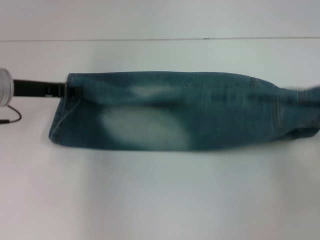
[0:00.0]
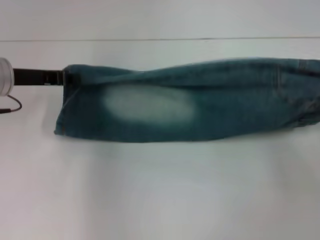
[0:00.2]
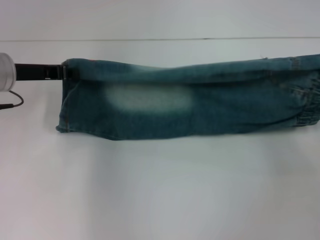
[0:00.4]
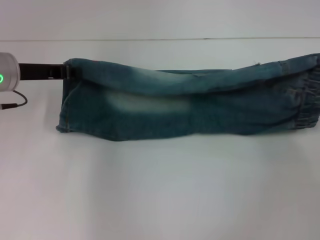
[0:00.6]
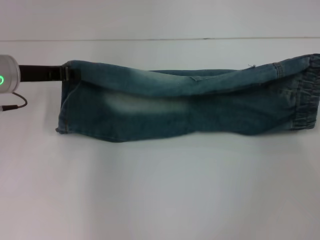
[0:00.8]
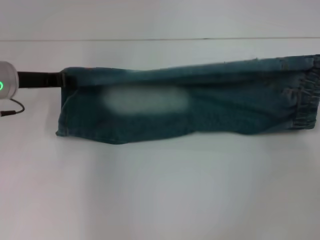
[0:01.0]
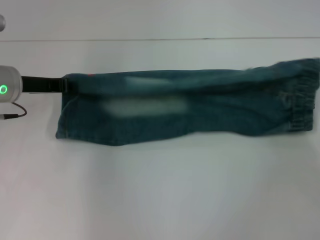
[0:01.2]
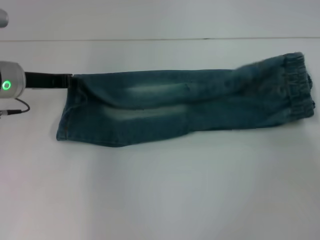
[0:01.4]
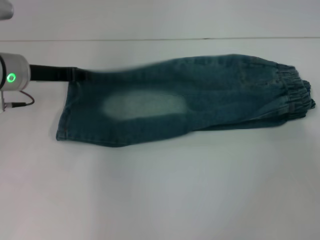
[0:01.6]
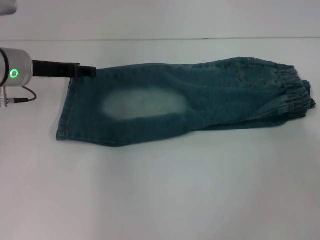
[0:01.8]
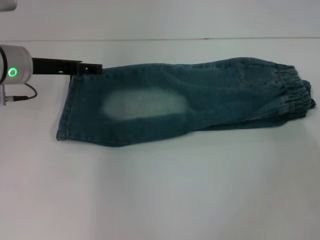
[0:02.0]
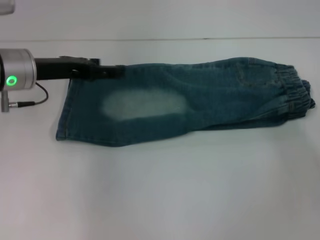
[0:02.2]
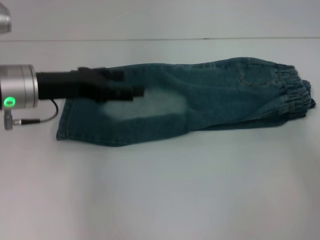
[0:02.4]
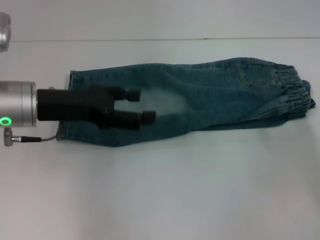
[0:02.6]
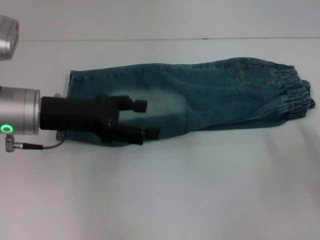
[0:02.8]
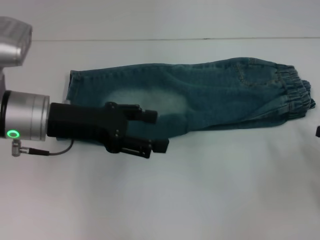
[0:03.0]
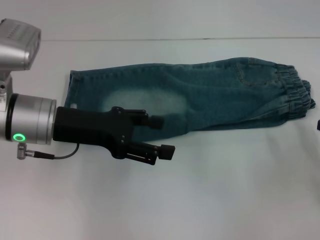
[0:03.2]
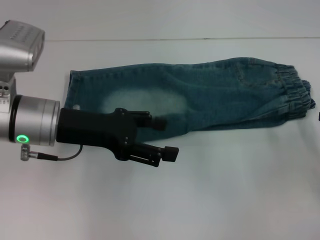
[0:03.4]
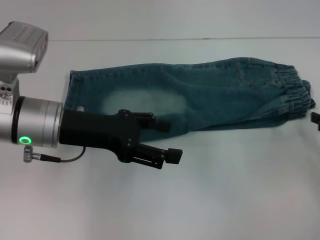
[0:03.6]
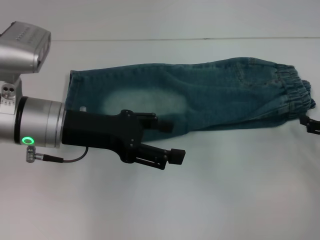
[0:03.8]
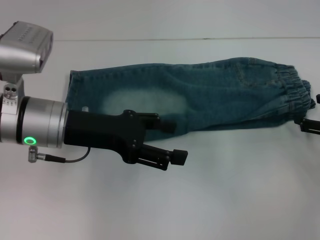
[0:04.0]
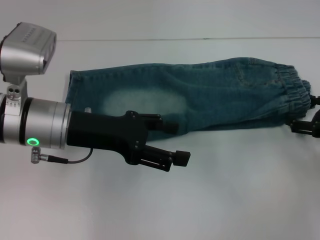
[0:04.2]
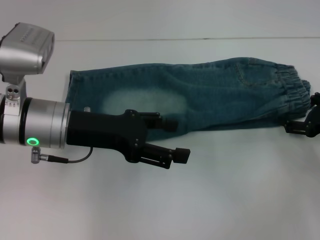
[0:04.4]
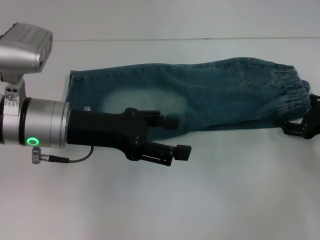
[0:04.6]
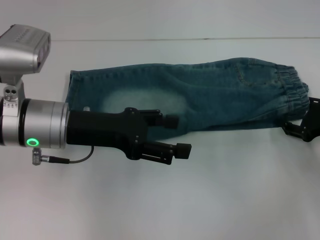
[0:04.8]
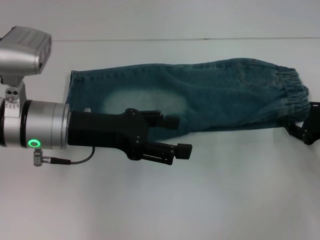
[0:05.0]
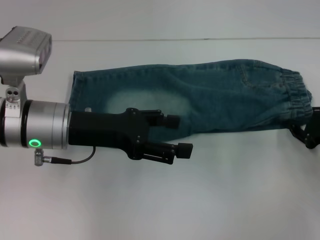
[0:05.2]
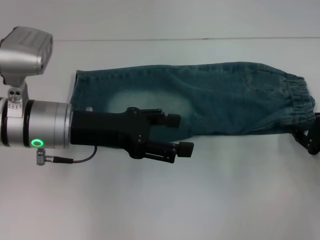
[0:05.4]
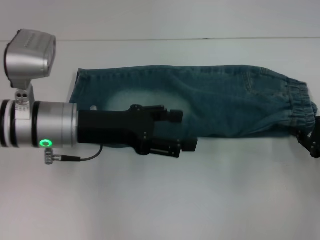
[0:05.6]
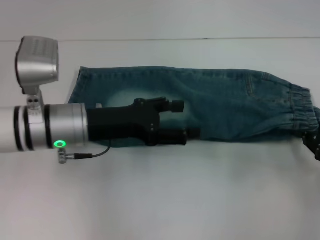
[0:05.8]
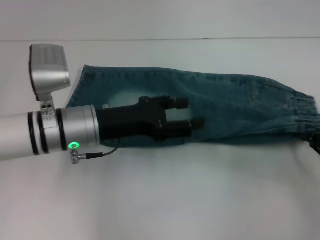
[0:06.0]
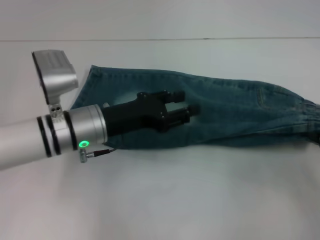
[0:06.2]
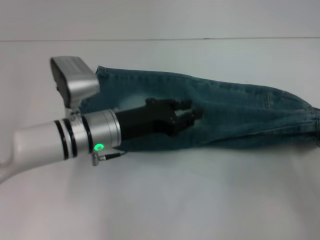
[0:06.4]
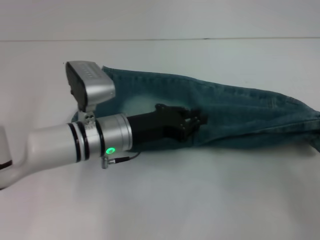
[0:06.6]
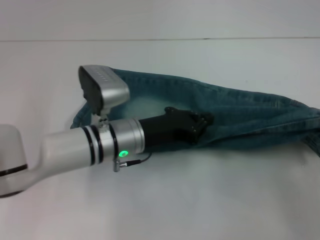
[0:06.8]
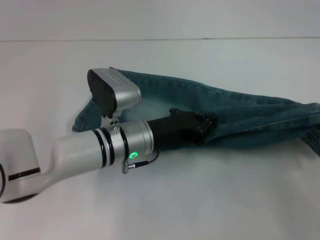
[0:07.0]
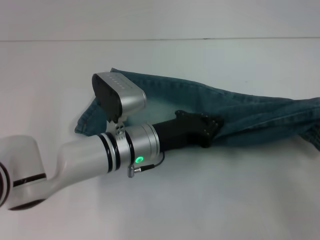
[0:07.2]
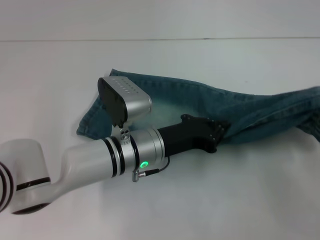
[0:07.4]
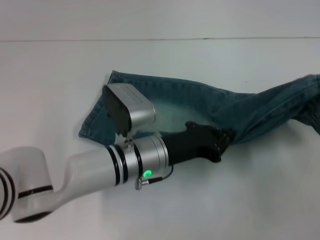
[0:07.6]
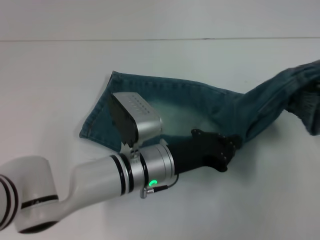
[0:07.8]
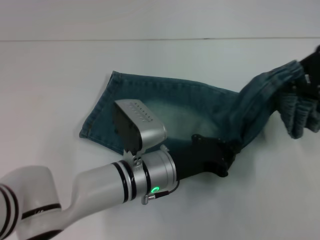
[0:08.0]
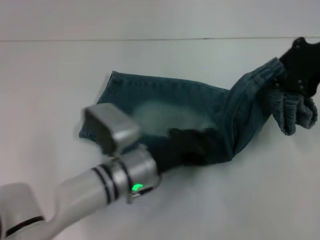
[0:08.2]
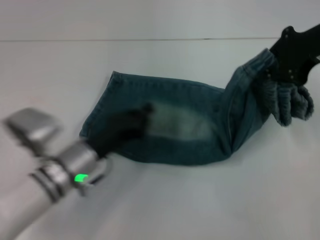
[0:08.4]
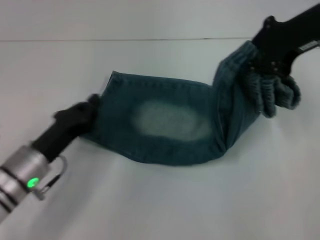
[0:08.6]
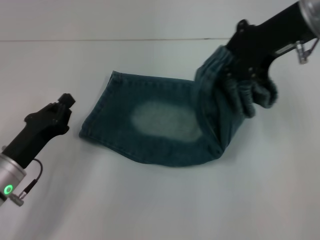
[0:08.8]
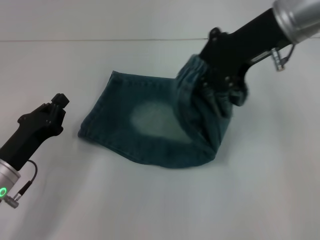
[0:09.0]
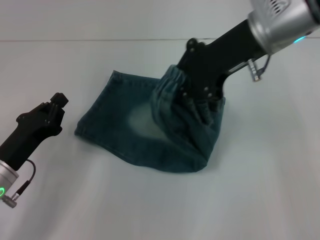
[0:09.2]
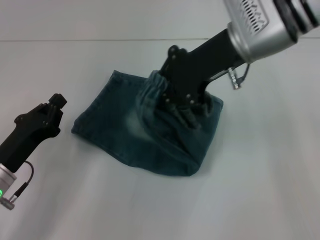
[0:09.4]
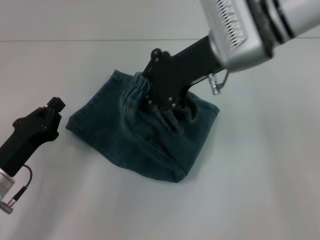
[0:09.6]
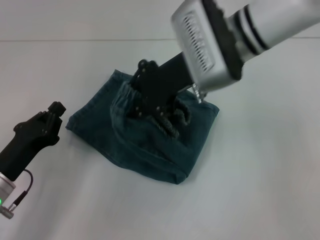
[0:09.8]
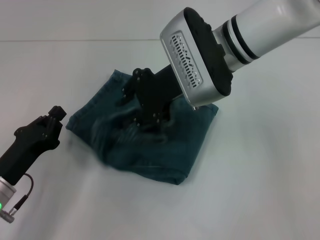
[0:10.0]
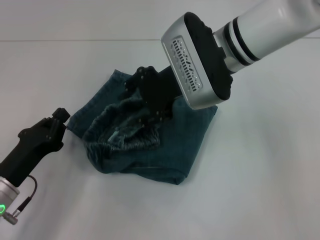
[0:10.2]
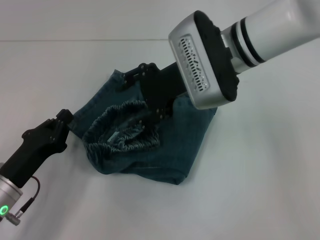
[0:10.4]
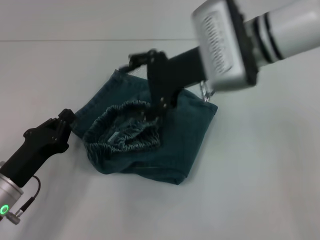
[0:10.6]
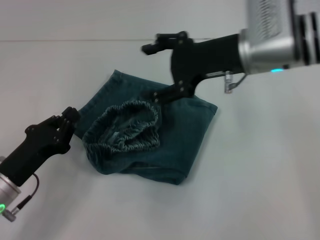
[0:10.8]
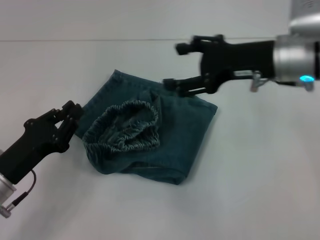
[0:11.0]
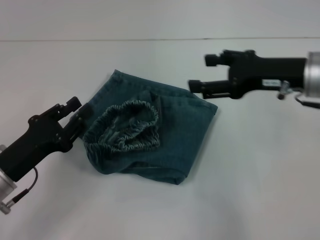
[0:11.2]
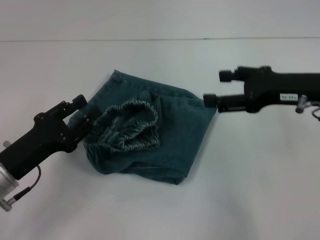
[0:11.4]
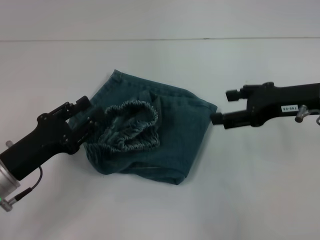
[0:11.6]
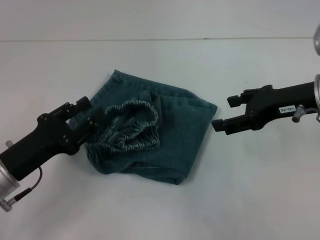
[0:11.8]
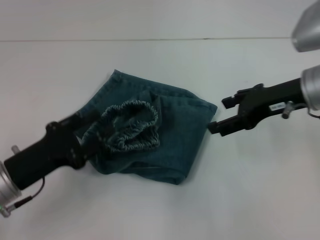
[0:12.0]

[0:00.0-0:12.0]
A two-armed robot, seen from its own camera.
Step, 0:00.0 to 0:01.4: Fold upward with your right hand.
Step, 0:01.8 to 0:05.4: Grab the waistband with your right hand.
Step, 0:05.6 to 0:08.0: Press the middle of the pants with your left hand.
Step, 0:08.2 to 0:12.0: Fold to the left with your right hand.
0:00.0 to 0:01.6: The right gripper is displaced forward by roughly 10 cm.
0:01.6 to 0:03.0: The right gripper goes some 15 cm backward and downward, and opens up; the left gripper shifts roughly 10 cm backward, and opens its fingers.
0:03.0 to 0:04.4: The right gripper goes some 10 cm forward.
0:04.4 to 0:06.0: The right gripper heads backward, covering about 5 cm, and closes up. Meanwhile the left gripper ends up approximately 5 cm from where it was.
0:06.0 to 0:07.6: The right gripper moves upward, roughly 10 cm. The left gripper heads to the right and downward, covering approximately 10 cm, and closes.
0:07.6 to 0:09.0: The left gripper heads to the left, covering approximately 20 cm. The right gripper shifts some 25 cm to the left and forward.
0:09.0 to 0:10.4: The right gripper travels to the left and downward by about 10 cm, and opens.
0:10.4 to 0:12.0: The right gripper is displaced to the right by some 15 cm, and opens. The left gripper opens up.

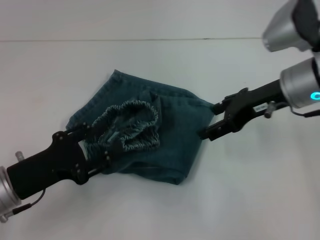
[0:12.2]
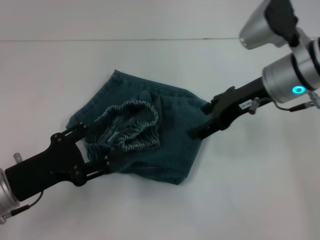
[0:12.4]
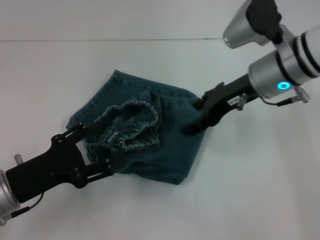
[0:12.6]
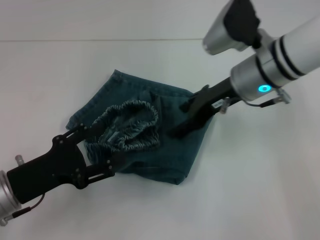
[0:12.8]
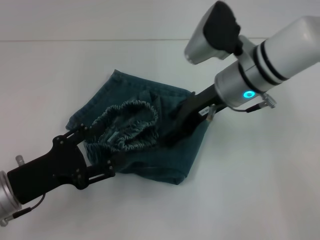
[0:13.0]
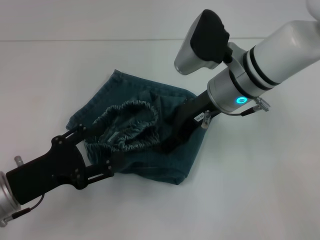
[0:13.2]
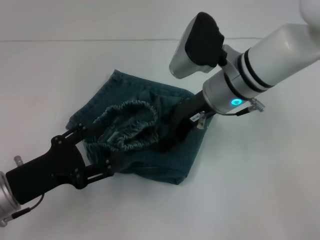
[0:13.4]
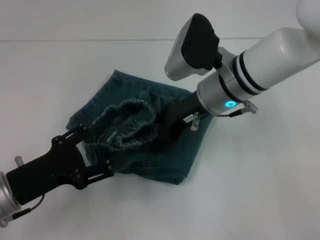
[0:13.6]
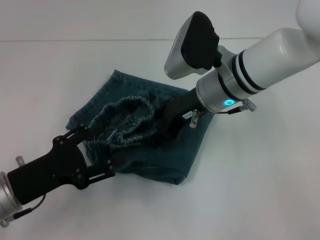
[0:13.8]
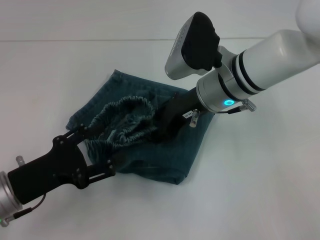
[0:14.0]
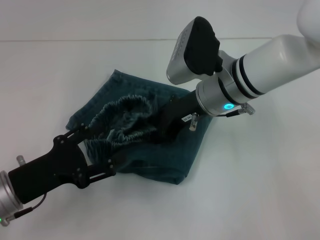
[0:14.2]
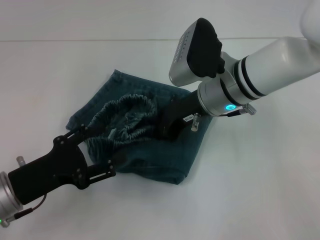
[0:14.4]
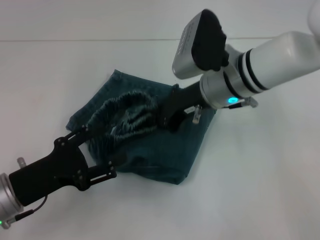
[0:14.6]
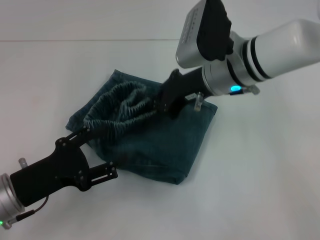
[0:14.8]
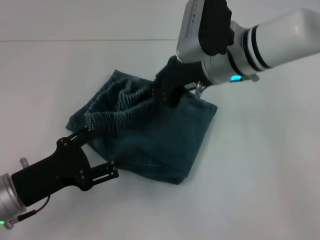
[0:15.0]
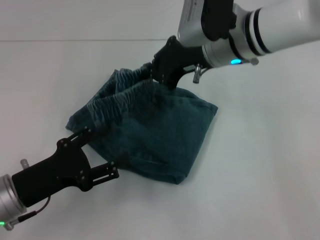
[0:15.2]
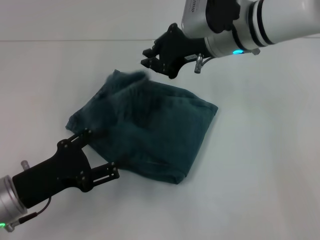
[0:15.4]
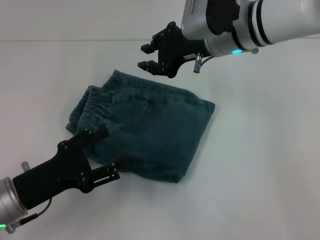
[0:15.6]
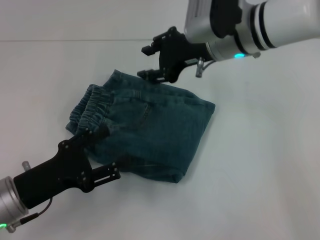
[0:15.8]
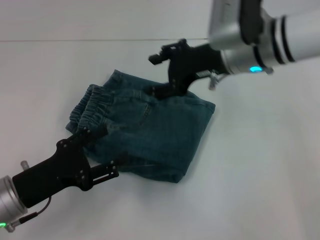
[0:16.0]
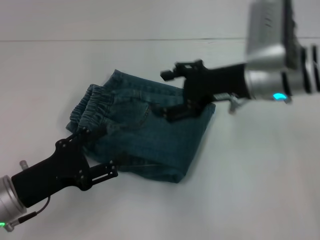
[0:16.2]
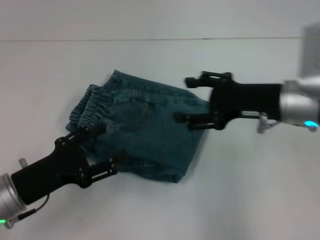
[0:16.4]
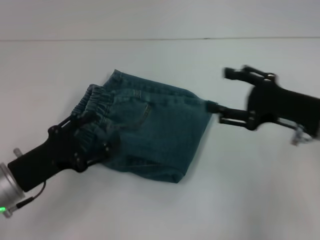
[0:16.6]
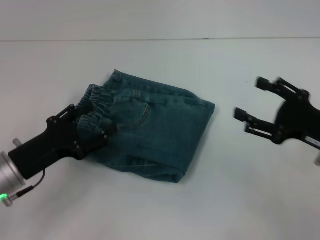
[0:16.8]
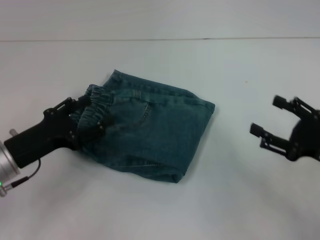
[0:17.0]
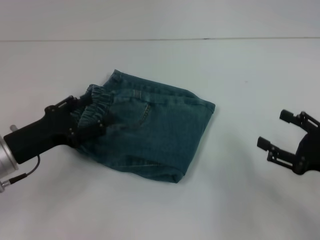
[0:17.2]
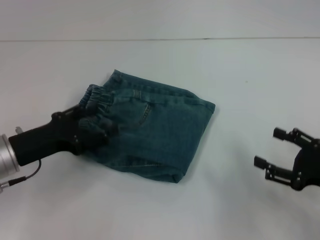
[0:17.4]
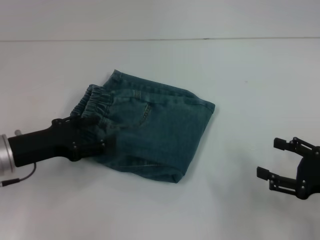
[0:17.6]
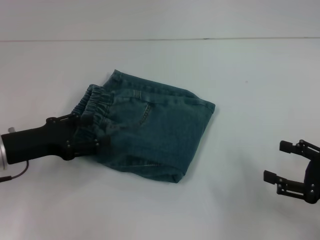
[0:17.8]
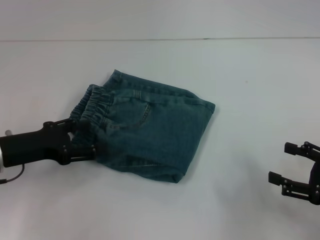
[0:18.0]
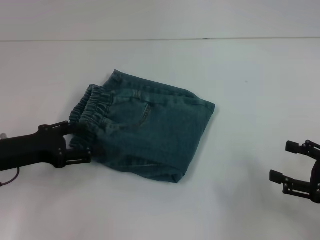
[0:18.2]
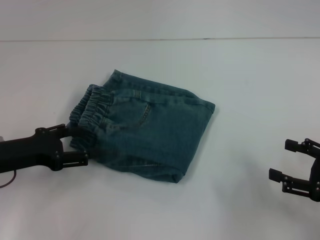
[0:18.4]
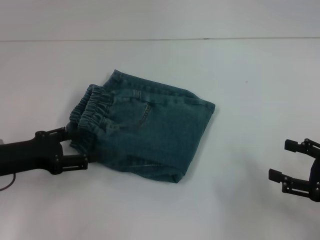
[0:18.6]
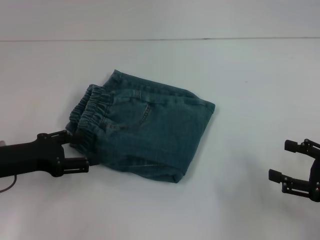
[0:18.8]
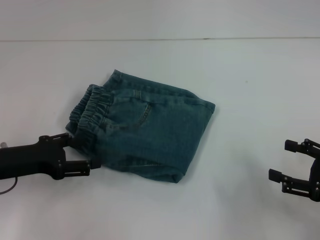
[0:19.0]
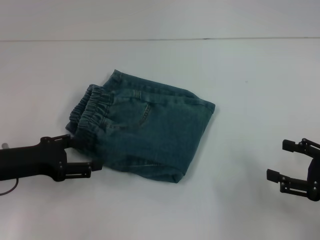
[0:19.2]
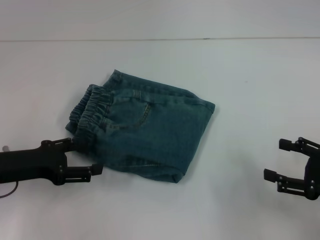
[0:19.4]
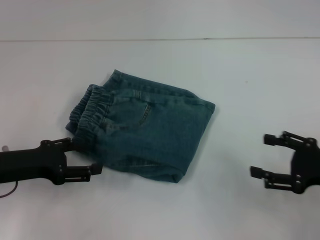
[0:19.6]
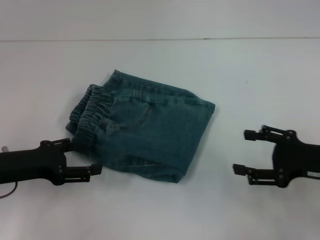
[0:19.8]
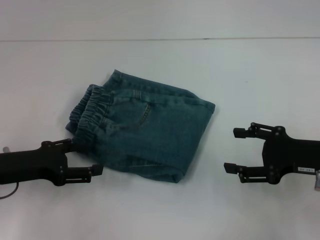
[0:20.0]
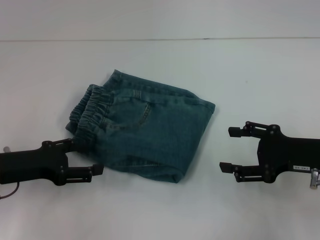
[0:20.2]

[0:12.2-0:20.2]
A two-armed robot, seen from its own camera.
Step, 0:12.2 to 0:15.6: Adjust the pants with your right hand.
0:12.2 to 0:13.8: The right gripper shifts roughly 10 cm to the left. The left gripper opens.
0:13.8 to 0:15.4: The right gripper moves about 5 cm, and closes up.
0:15.4 to 0:17.0: The right gripper heads to the right, backward and downward, covering about 30 cm, and opens its fingers.
0:18.6 to 0:20.2: The right gripper shifts approximately 10 cm forward and to the left.

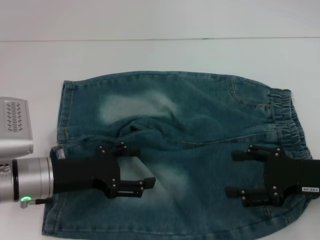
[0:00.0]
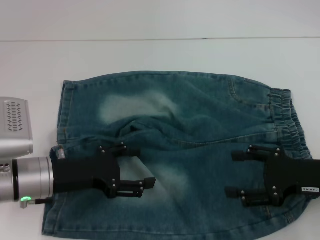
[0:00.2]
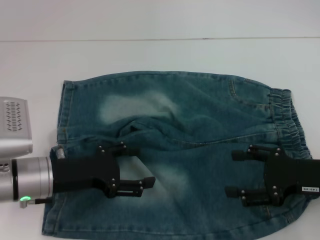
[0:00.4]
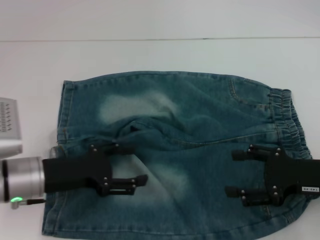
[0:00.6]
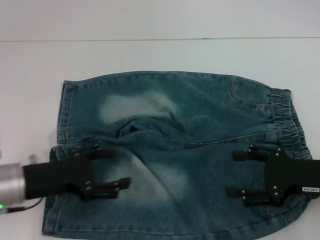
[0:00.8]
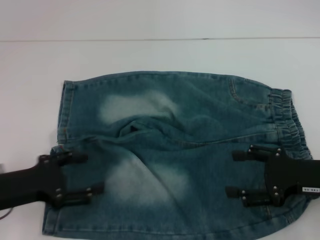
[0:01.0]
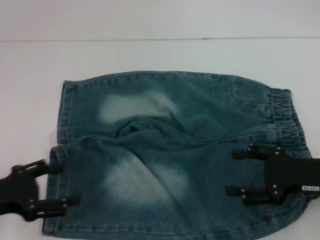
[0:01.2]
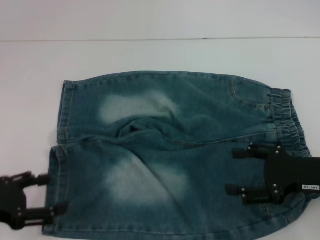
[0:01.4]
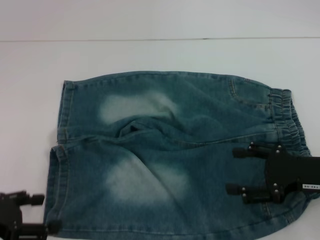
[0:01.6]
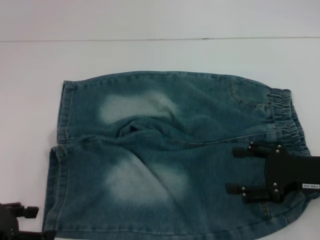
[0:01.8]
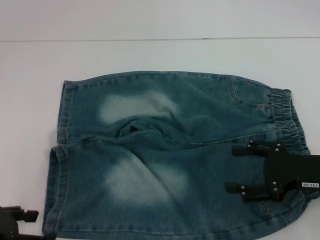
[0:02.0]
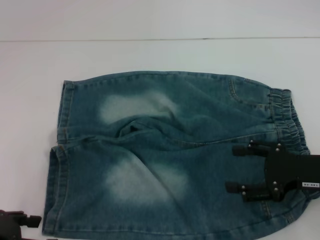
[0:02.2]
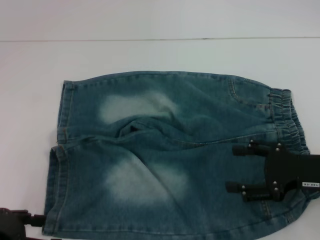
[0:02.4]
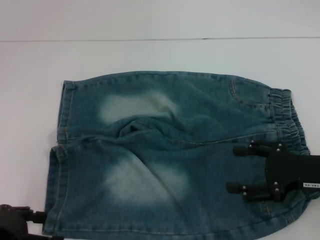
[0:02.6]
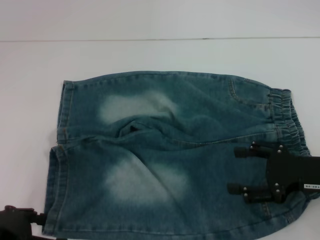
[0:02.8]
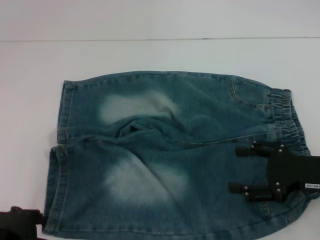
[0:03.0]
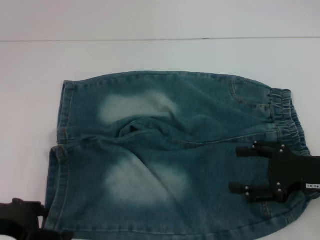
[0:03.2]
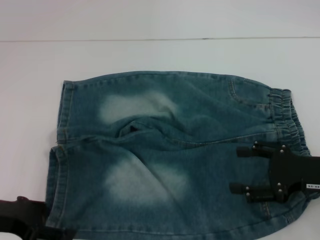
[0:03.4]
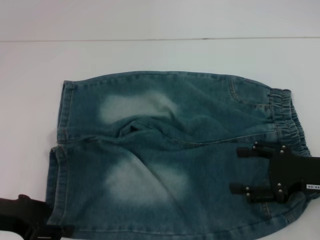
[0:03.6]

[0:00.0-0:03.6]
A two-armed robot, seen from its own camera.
0:00.0 to 0:01.8: The left gripper is displaced to the left and backward by roughly 15 cm.
0:01.8 to 0:03.6: The grippers stay close to where they were, moving slightly.
